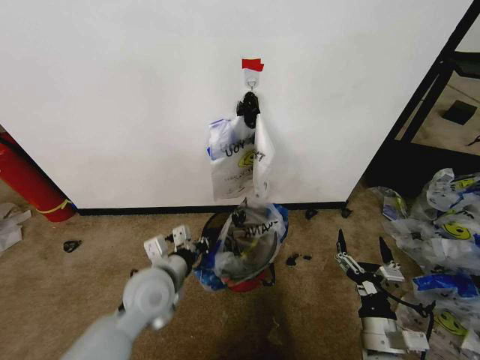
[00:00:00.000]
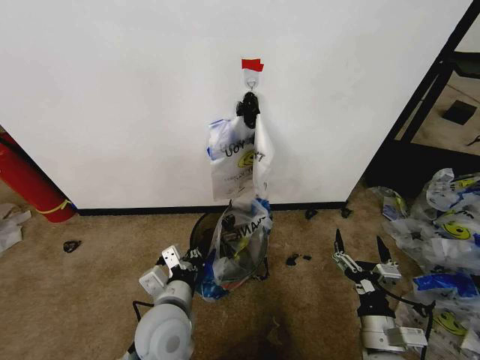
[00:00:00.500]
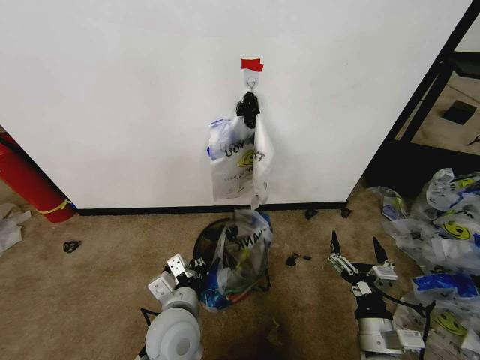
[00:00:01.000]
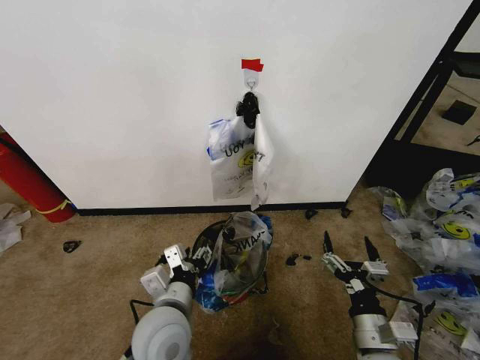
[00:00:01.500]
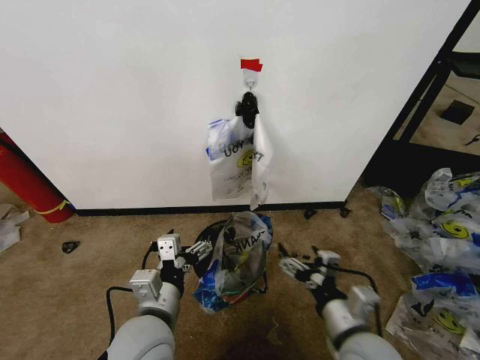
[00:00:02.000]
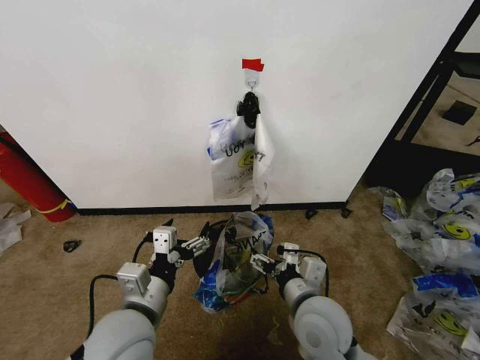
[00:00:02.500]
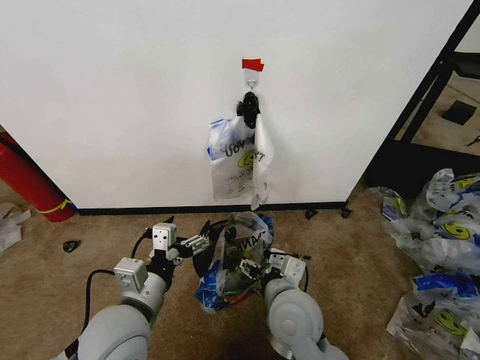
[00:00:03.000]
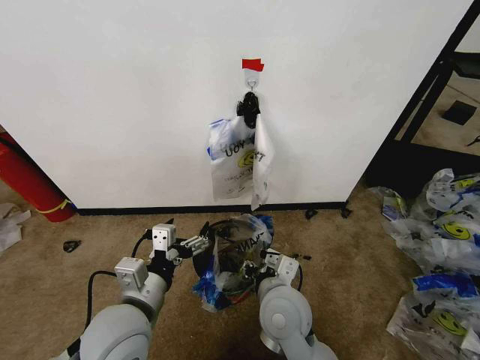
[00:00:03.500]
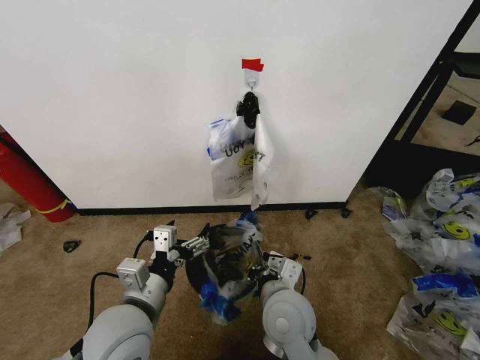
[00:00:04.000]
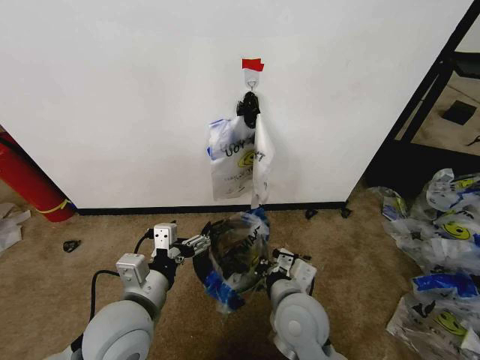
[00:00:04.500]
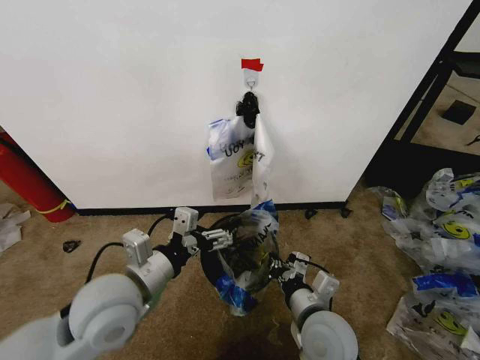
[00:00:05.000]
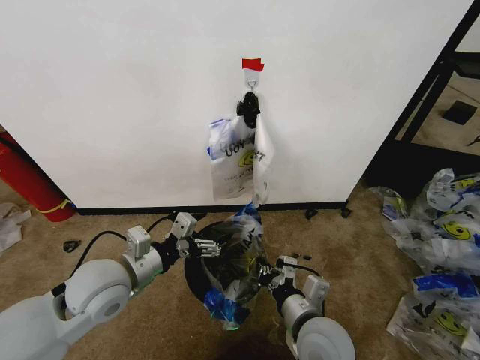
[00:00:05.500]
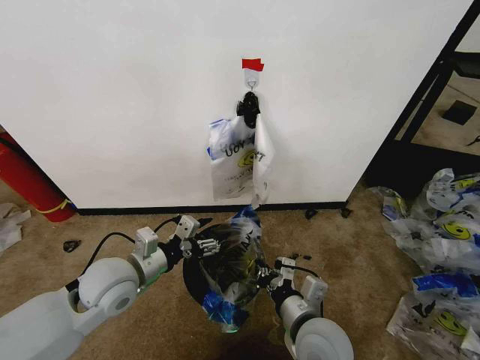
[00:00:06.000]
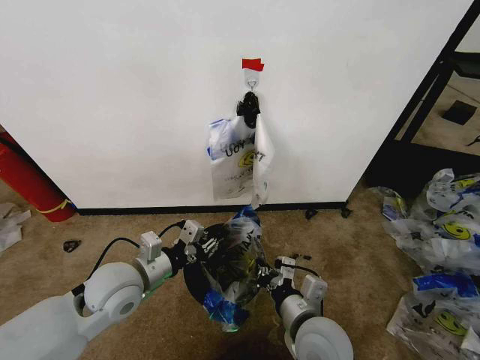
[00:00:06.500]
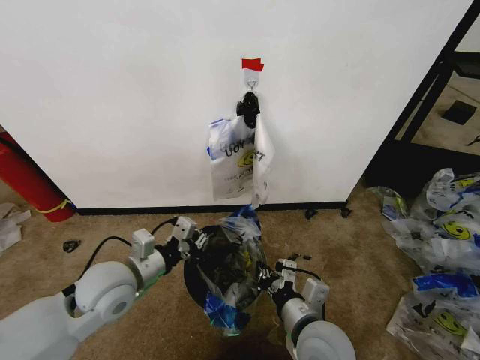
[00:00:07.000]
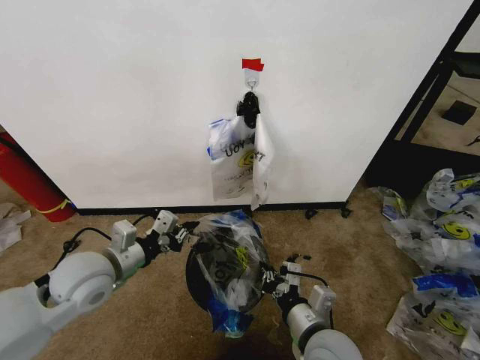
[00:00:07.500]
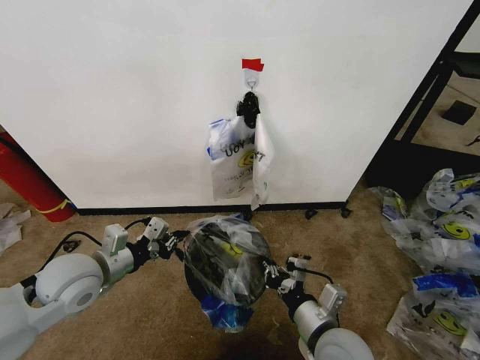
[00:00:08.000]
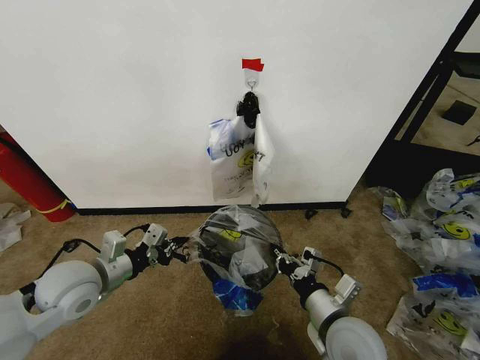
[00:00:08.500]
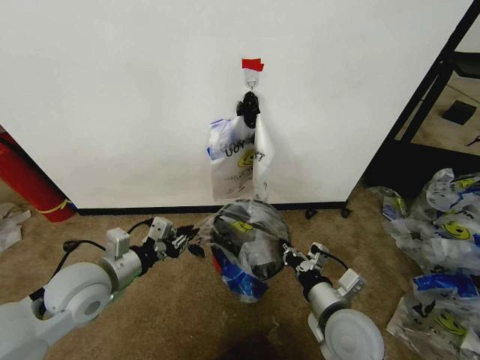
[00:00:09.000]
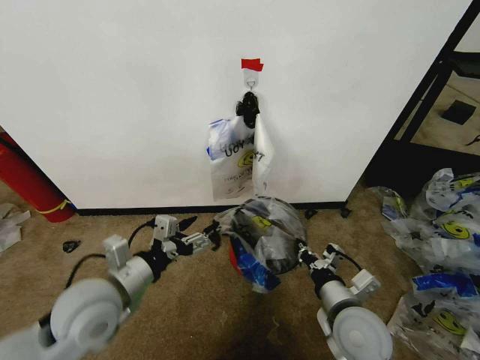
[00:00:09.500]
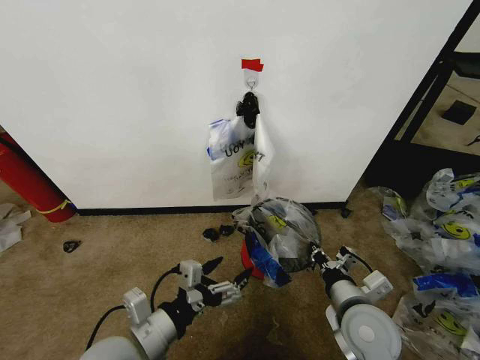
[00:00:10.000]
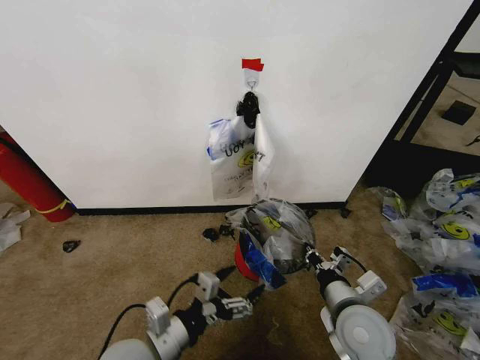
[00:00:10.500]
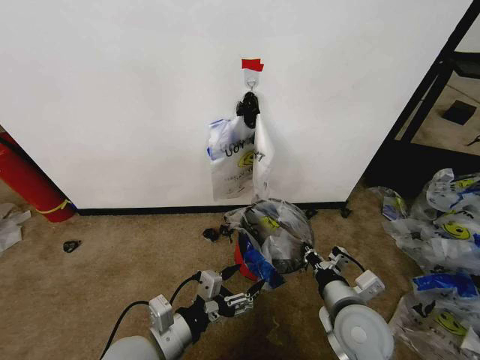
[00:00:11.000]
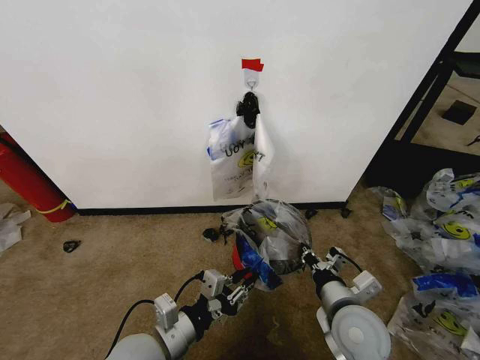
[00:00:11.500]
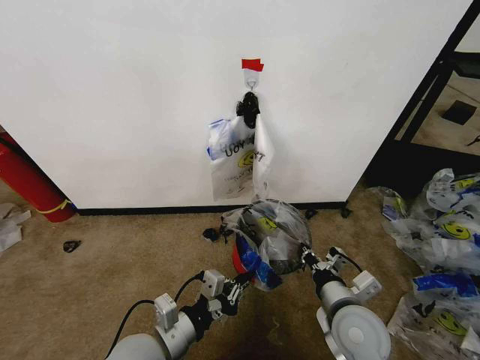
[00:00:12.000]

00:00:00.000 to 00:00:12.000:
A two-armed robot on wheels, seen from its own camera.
Task of the whole recording: Pick up the garbage bag from the wall and place it over the trash bin.
00:00:00.000 to 00:00:02.000: The left gripper moves backward, some 10 cm, and opens up, while the right gripper heads upward and to the left, covering roughly 10 cm.
00:00:02.000 to 00:00:04.000: The right gripper goes some 15 cm to the left and forward, and closes.
00:00:04.000 to 00:00:06.000: The right gripper heads to the right, covering some 5 cm; the left gripper shifts approximately 10 cm forward and to the left.
00:00:06.000 to 00:00:08.000: The left gripper heads to the left, covering about 5 cm, and closes.
00:00:08.000 to 00:00:10.000: The right gripper goes approximately 5 cm to the right. The left gripper travels backward and to the right by approximately 15 cm, and opens up.
00:00:10.000 to 00:00:12.000: The left gripper closes its fingers.

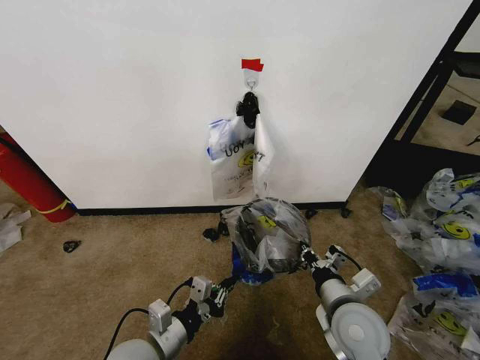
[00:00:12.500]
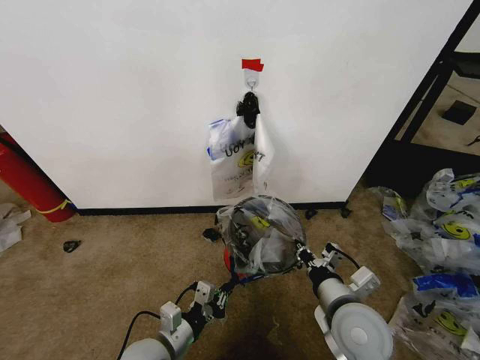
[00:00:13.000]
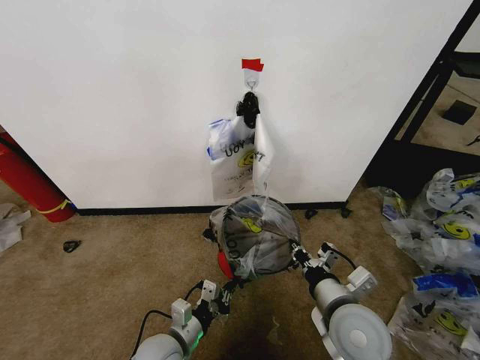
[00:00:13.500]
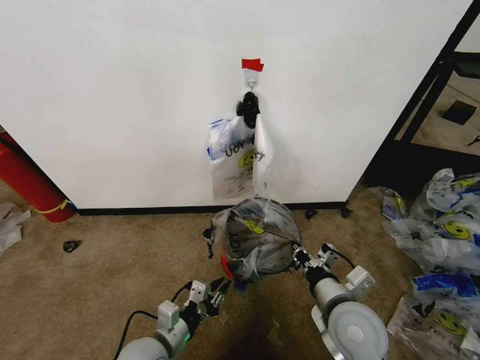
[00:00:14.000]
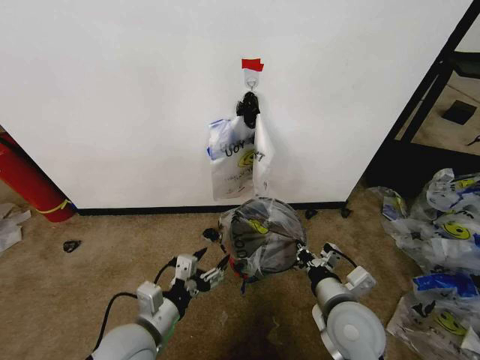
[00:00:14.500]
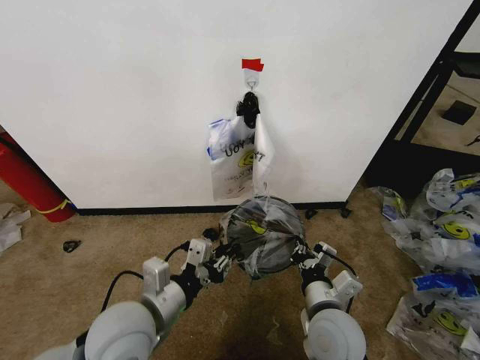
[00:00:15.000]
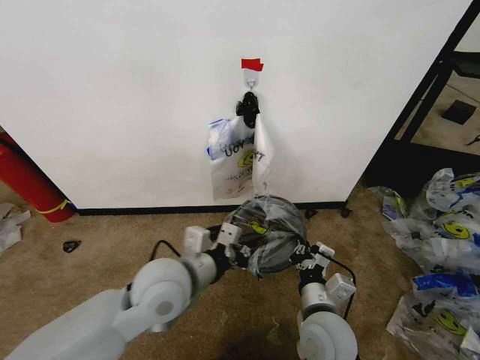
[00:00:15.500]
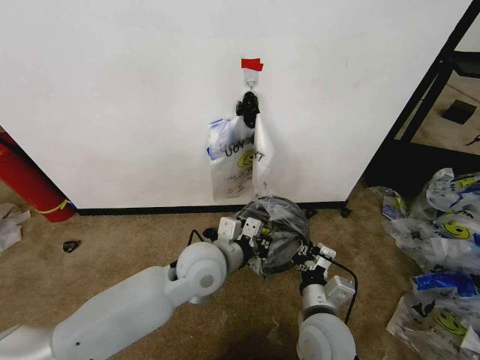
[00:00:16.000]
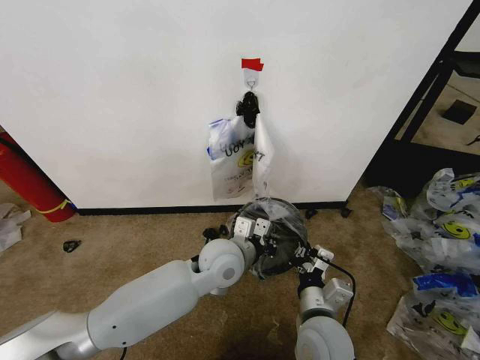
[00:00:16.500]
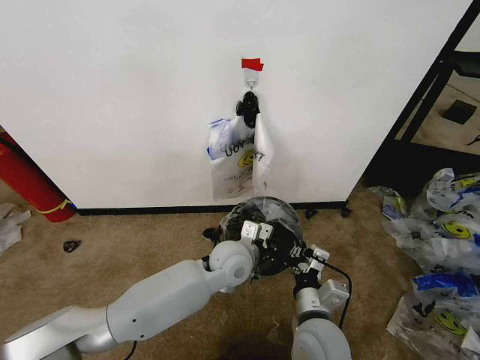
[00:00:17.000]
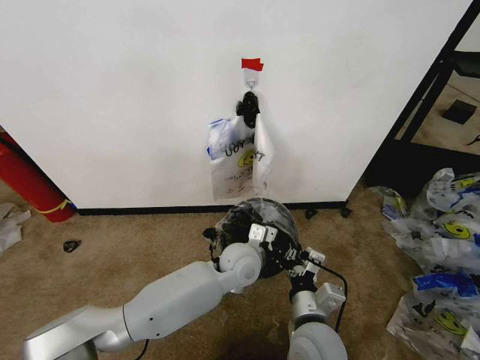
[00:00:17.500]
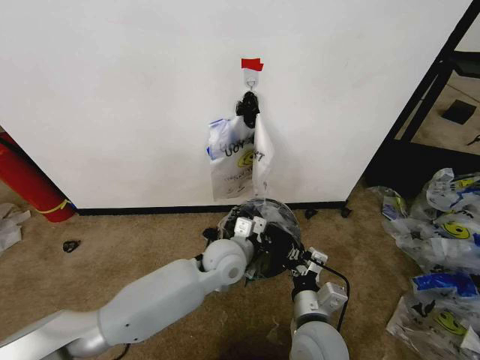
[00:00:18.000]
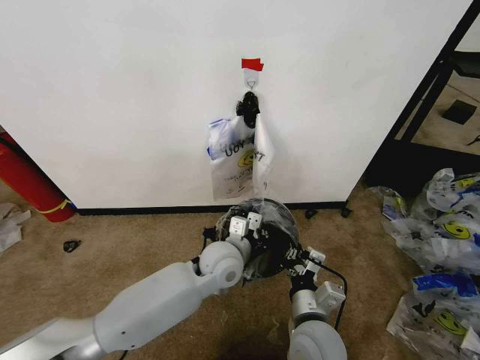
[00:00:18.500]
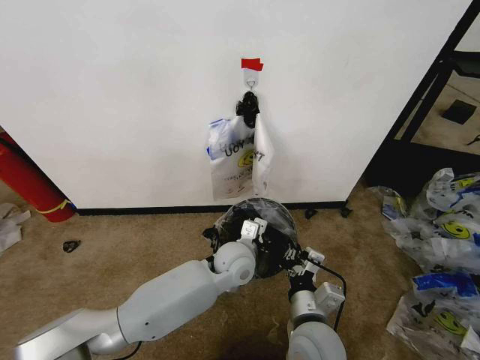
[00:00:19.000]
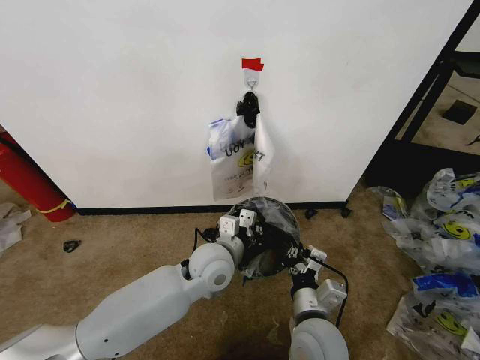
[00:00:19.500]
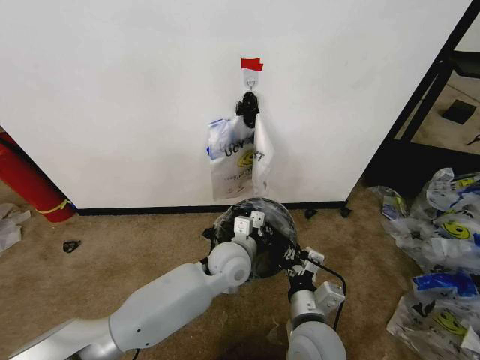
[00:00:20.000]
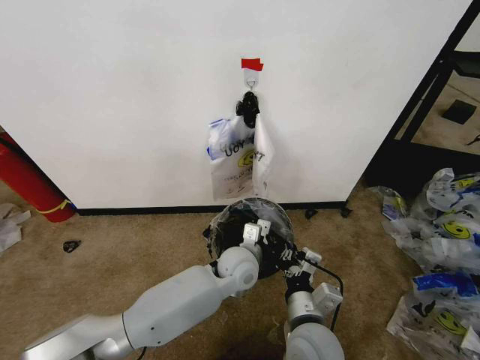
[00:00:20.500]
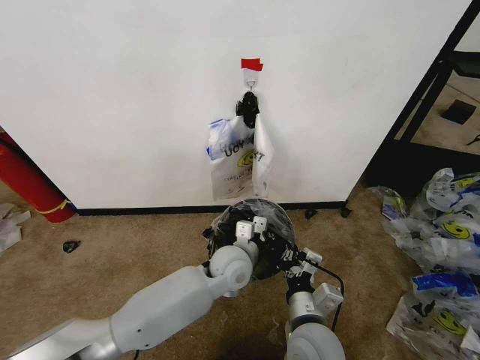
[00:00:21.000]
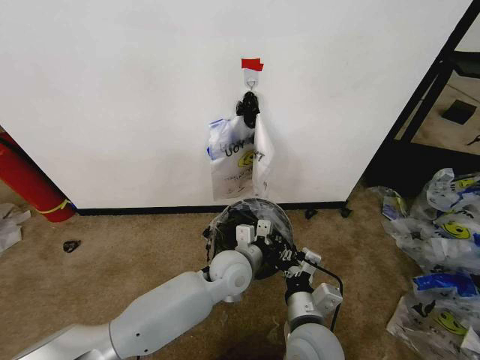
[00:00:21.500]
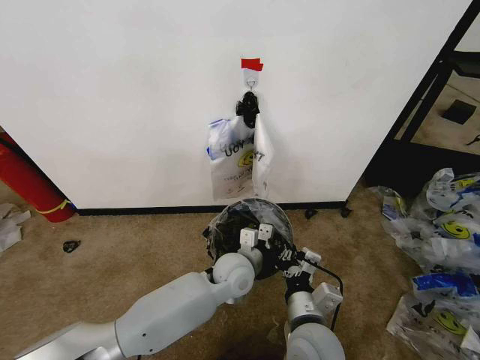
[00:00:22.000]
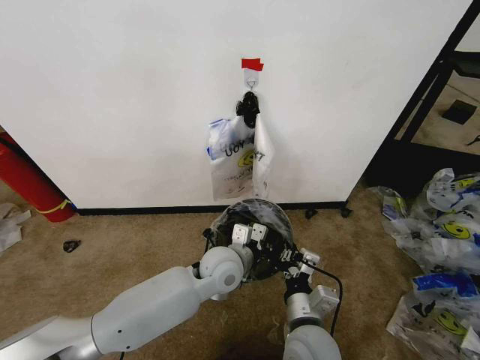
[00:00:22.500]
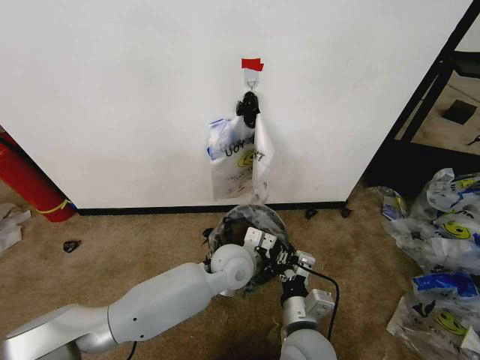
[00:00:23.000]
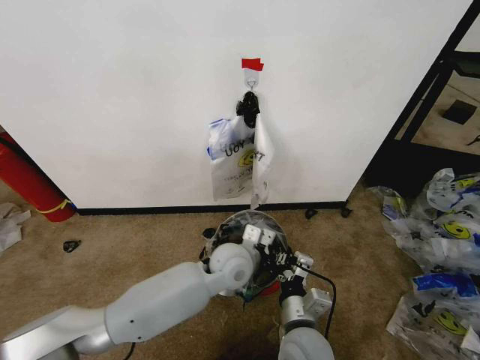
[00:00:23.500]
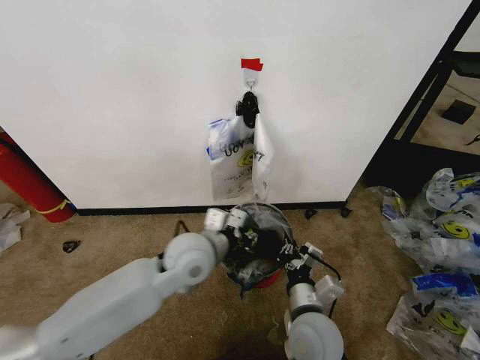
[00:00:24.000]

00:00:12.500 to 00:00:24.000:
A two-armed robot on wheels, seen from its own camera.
Task of the whole recording: Pick up the garbage bag from the wall and place it over the trash bin.
00:00:12.500 to 00:00:14.500: The left gripper travels downward and back again, roughly 5 cm each way, and opens its fingers.
00:00:14.500 to 00:00:16.500: The left gripper moves forward and to the right, about 20 cm, and closes up. Meanwhile the right gripper is displaced to the left by roughly 5 cm.
00:00:18.500 to 00:00:20.000: The grippers stay close to where they were, moving slightly.
00:00:20.000 to 00:00:22.000: There are only small adjustments of the grippers.
00:00:22.000 to 00:00:24.000: The left gripper is displaced upward and to the left by roughly 15 cm, and opens.

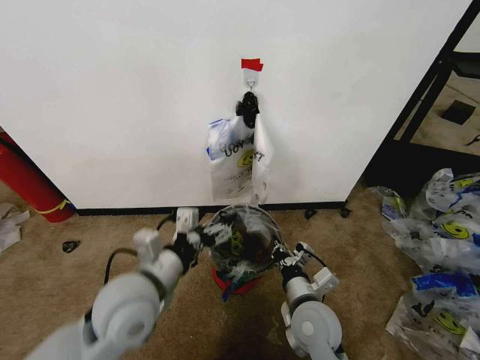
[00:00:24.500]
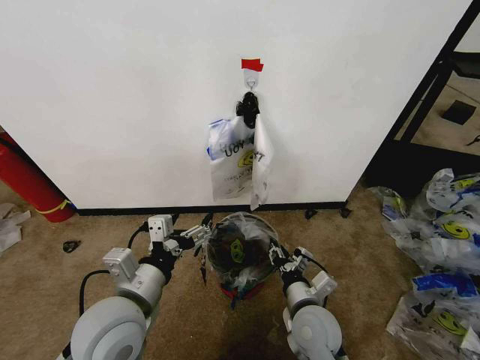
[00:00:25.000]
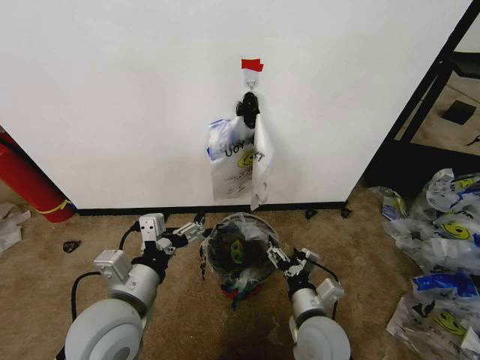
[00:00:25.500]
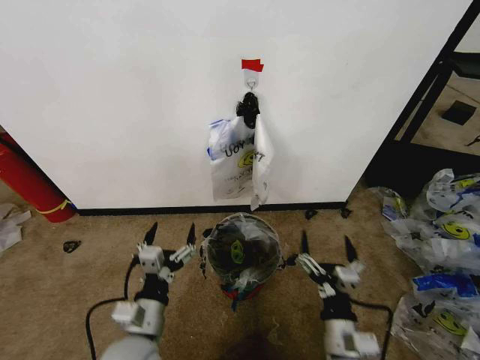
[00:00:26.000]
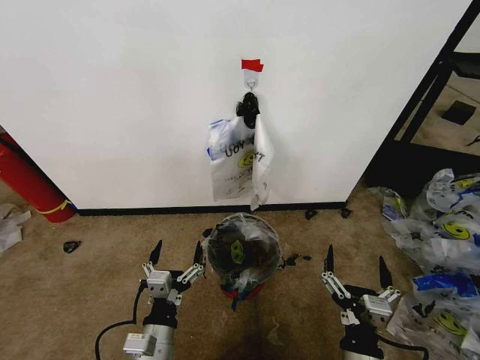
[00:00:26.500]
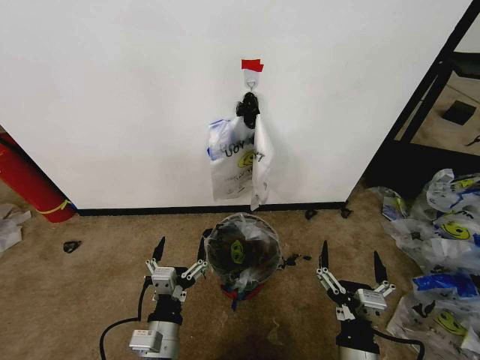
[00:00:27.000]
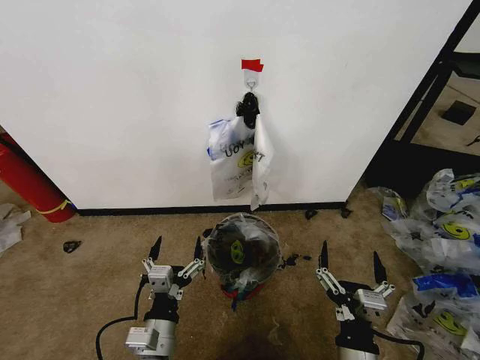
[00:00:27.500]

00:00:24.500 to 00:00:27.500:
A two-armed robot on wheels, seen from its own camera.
Task of the whole recording: Pick up the garbage bag from the wall and place it over the trash bin.
00:00:24.500 to 00:00:26.000: The left gripper shifts some 10 cm downward; the right gripper goes roughly 10 cm backward, and opens its fingers.
00:00:26.000 to 00:00:27.500: The right gripper heads backward, covering roughly 5 cm.
